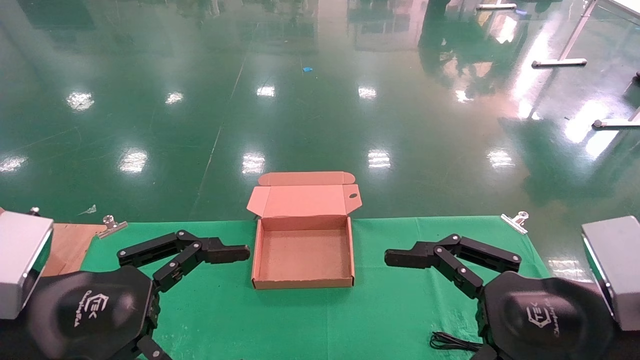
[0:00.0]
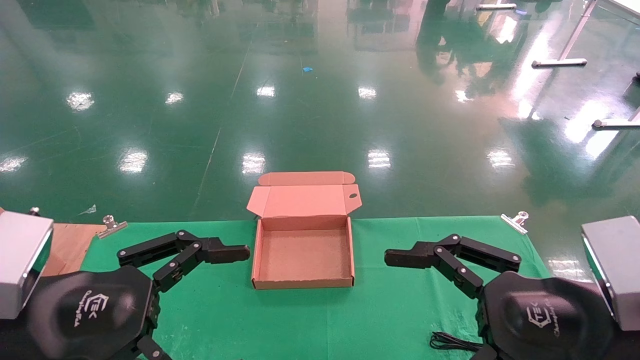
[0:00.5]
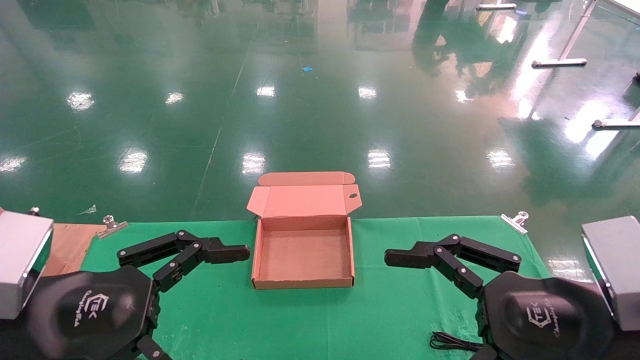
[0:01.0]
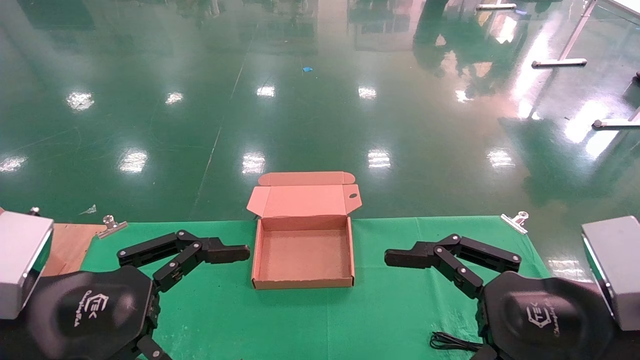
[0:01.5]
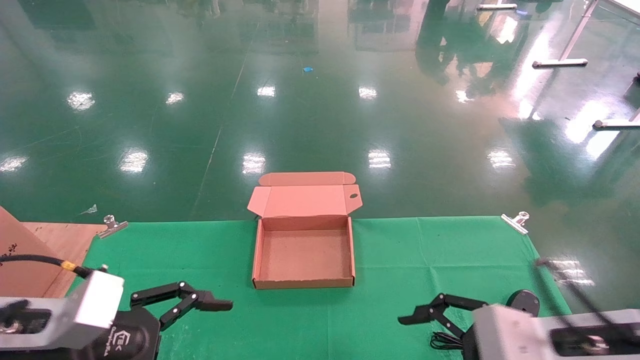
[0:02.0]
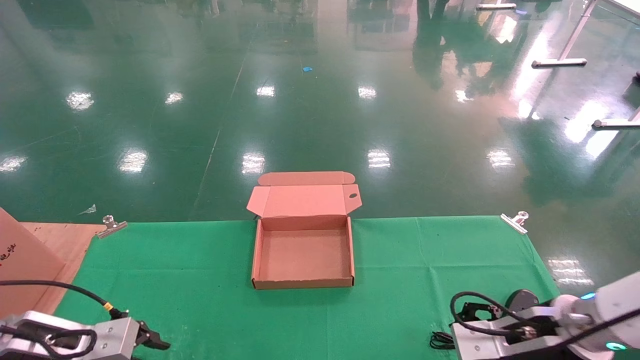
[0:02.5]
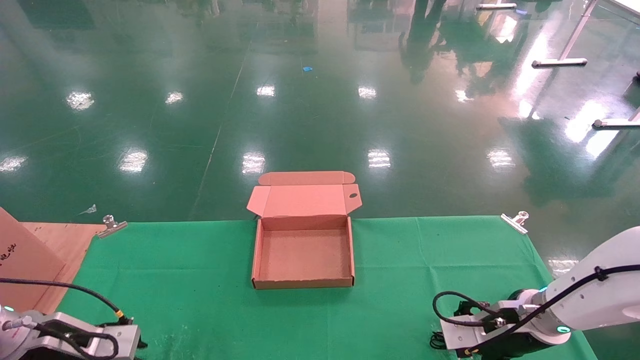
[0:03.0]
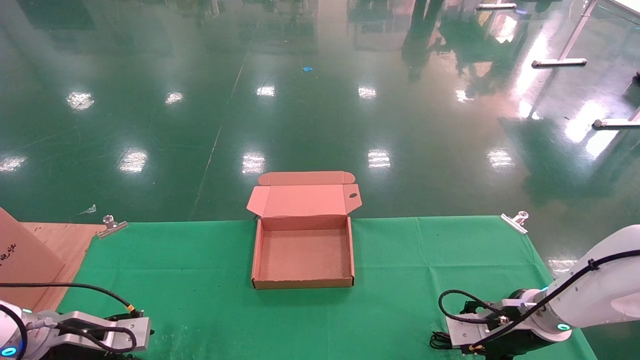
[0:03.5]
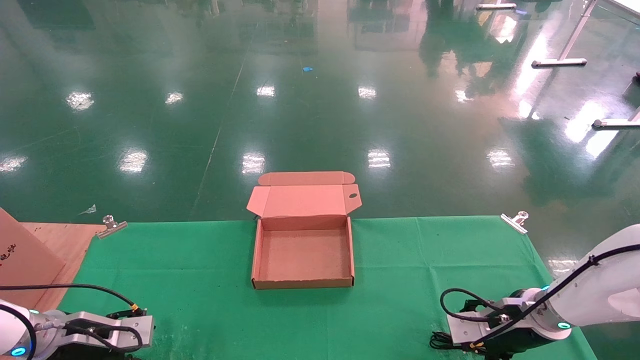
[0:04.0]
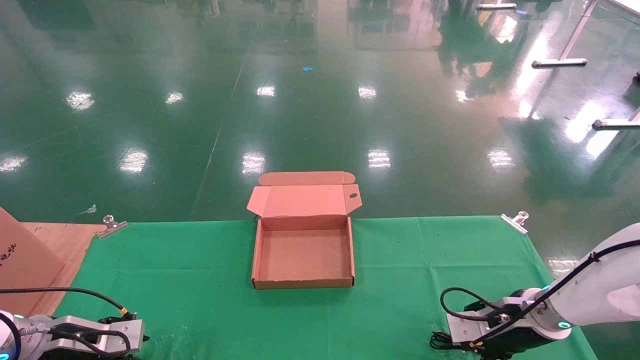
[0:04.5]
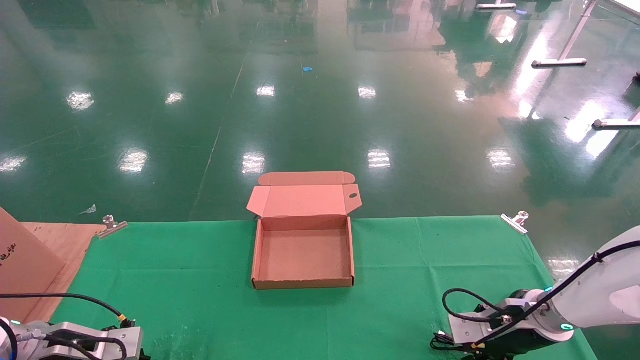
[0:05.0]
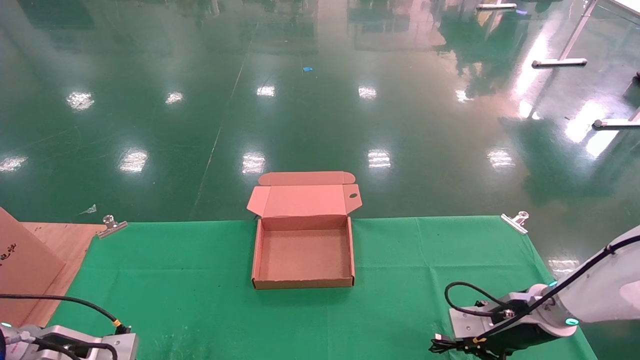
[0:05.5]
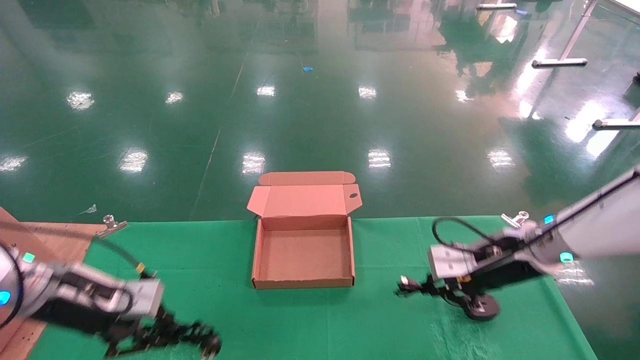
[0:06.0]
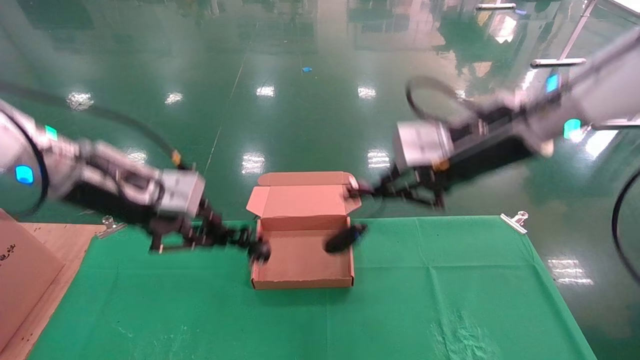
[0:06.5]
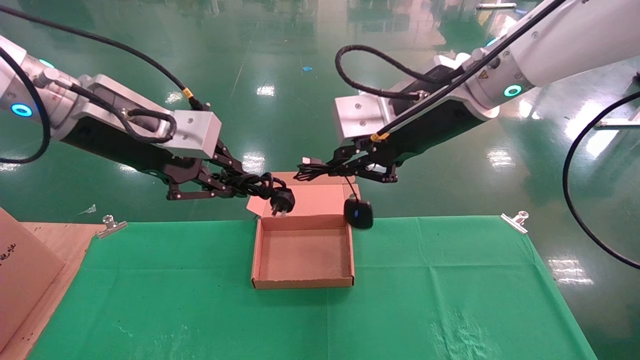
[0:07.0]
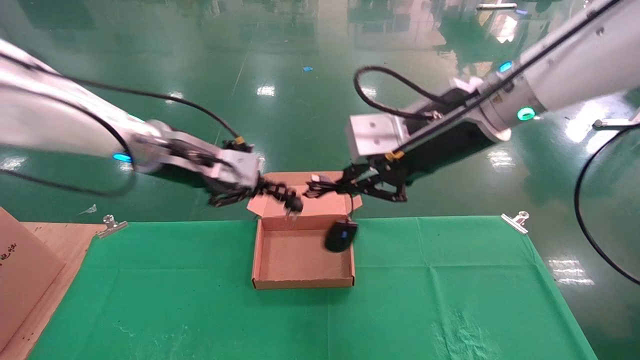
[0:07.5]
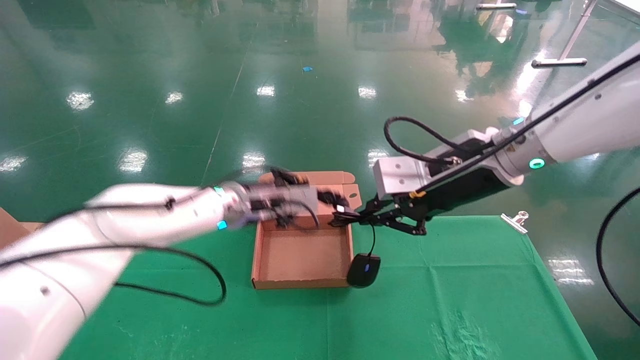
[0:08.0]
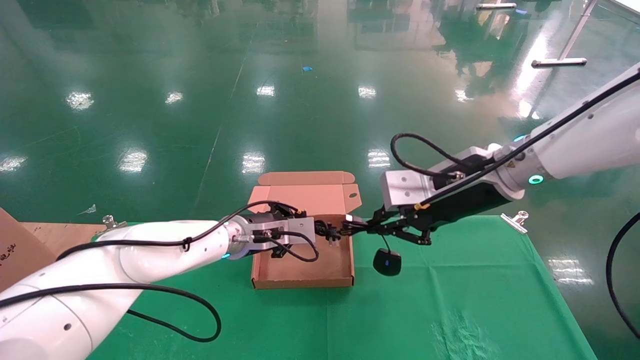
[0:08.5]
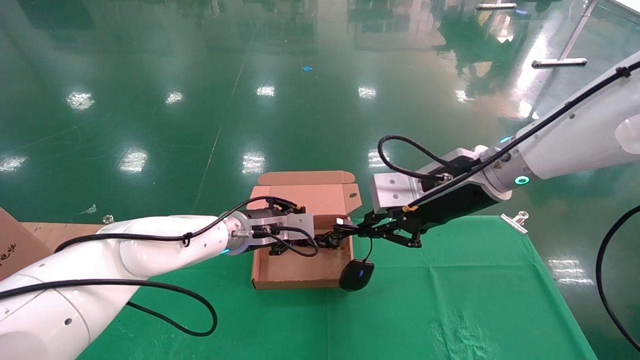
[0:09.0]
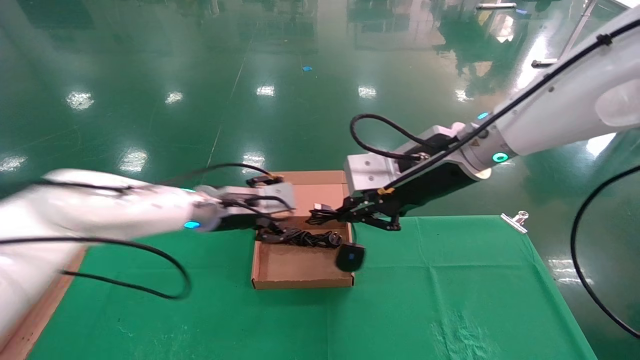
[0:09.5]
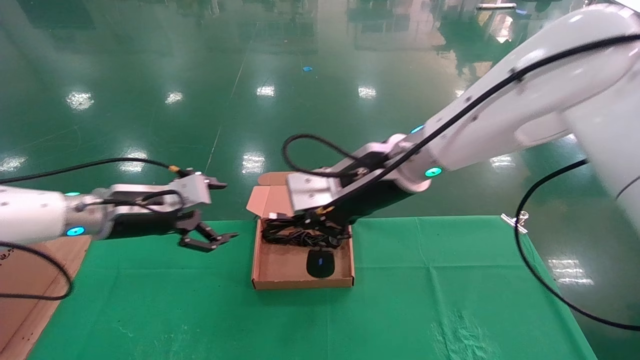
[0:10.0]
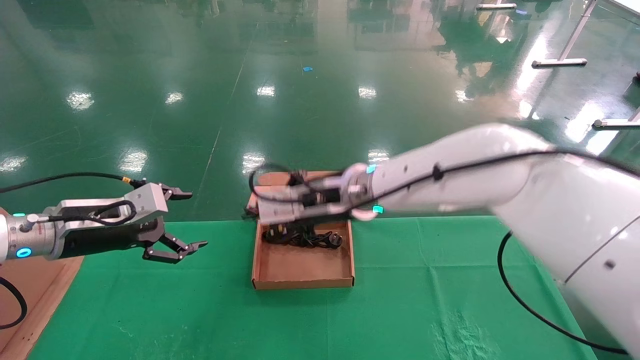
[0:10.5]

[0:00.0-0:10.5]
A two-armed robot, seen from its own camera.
Step, 0:02.5 to 0:06.0: Grab and lift both the mouse and power cord from the accessory packaging area at the same time.
0:00.0 to 0:02.0: The left gripper is displaced downward and forward by roughly 5 cm; the right gripper is displaced forward and downward by roughly 10 cm.
0:02.0 to 0:04.0: The left gripper travels forward, downward and to the left by roughly 20 cm; the right gripper heads forward and downward, covering roughly 20 cm.
0:04.0 to 0:06.5: The right gripper shifts approximately 30 cm upward and to the left, and closes its fingers; the left gripper is displaced upward and to the right by some 30 cm, and closes.
0:06.5 to 0:08.5: The left gripper is displaced downward, to the right and forward by some 25 cm; the right gripper ends up some 5 cm from where it was.
0:08.5 to 0:10.5: The right gripper is displaced to the left by roughly 15 cm. Meanwhile the left gripper moves to the left and backward, some 25 cm, and opens up.

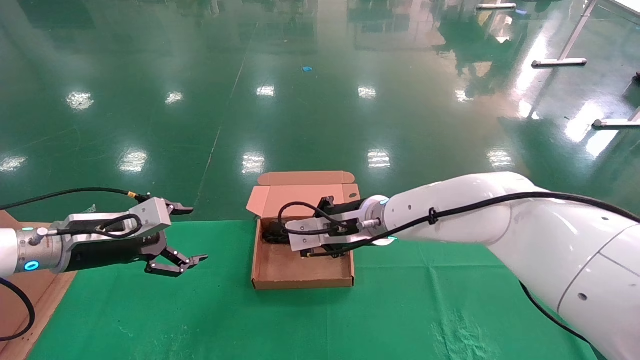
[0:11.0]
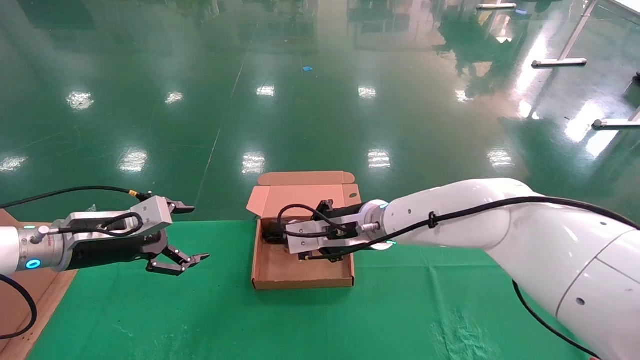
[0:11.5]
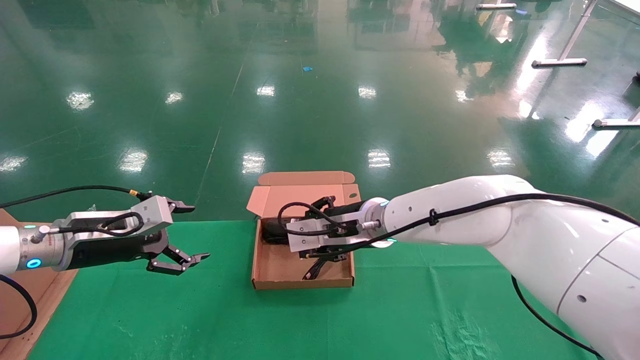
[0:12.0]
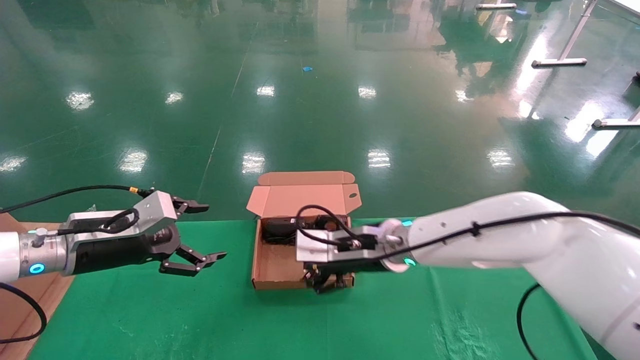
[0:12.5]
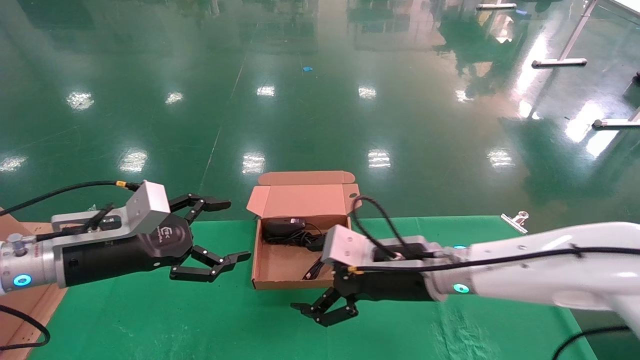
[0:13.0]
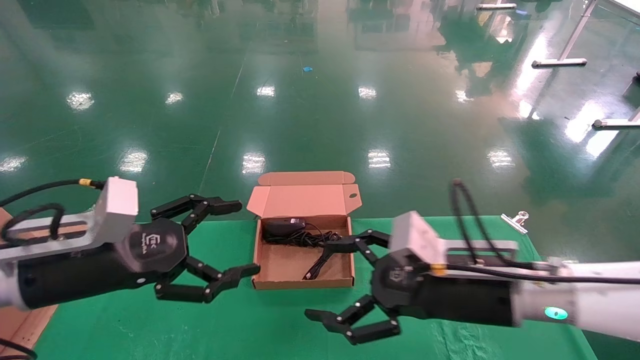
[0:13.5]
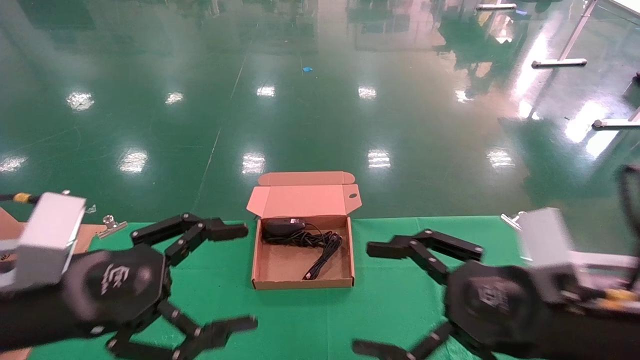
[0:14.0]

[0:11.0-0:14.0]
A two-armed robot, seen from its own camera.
Step, 0:11.0 to 0:13.0: Place the mouse and power cord into the box.
0:11.0 to 0:12.5: The right gripper changes place by some 5 cm, and opens.
0:12.5 to 0:14.0: The right gripper moves backward and to the right, approximately 25 cm, while the left gripper heads backward, covering about 15 cm.

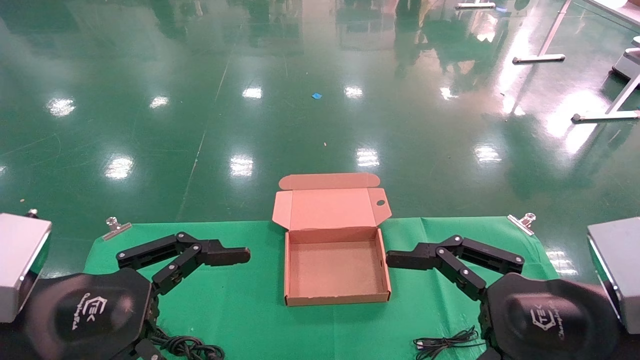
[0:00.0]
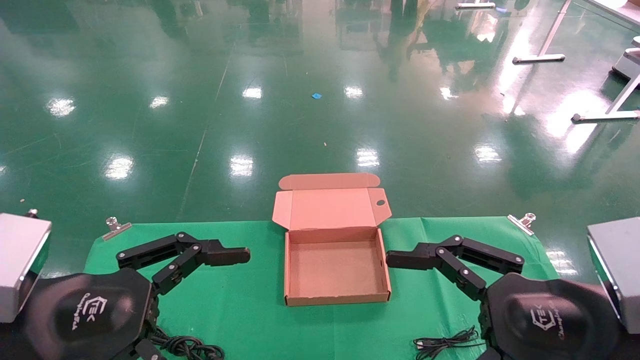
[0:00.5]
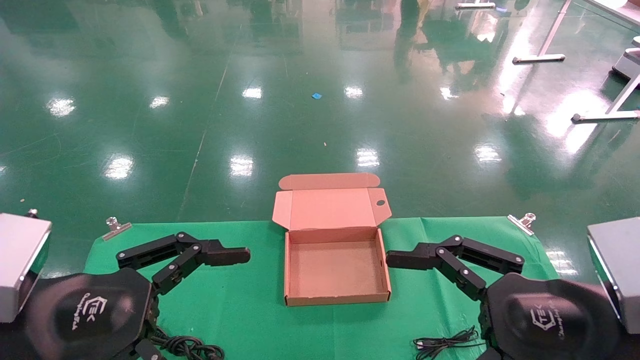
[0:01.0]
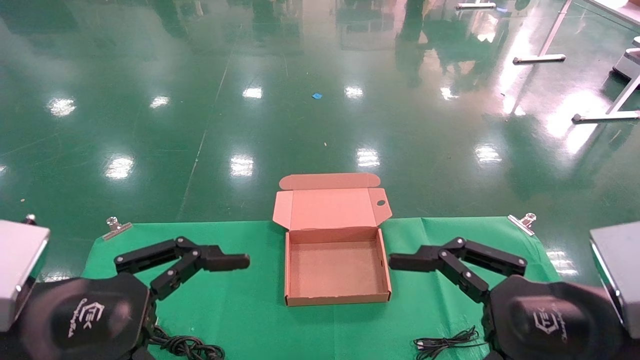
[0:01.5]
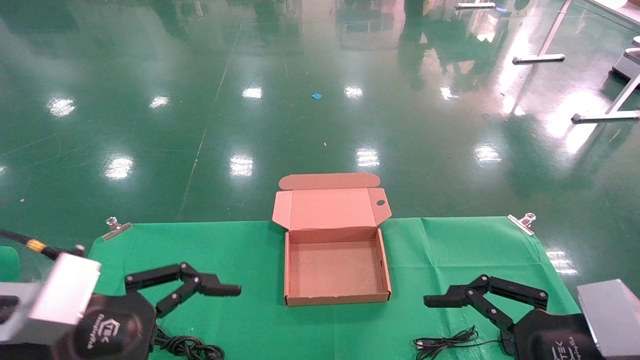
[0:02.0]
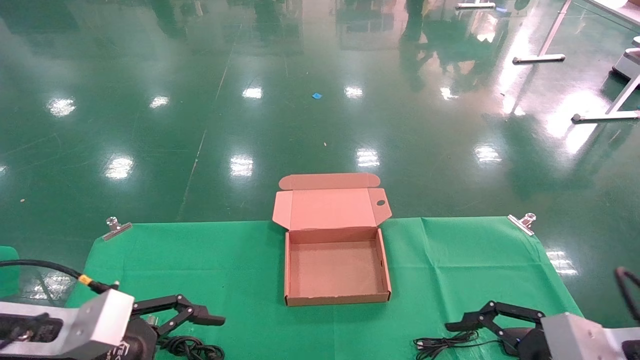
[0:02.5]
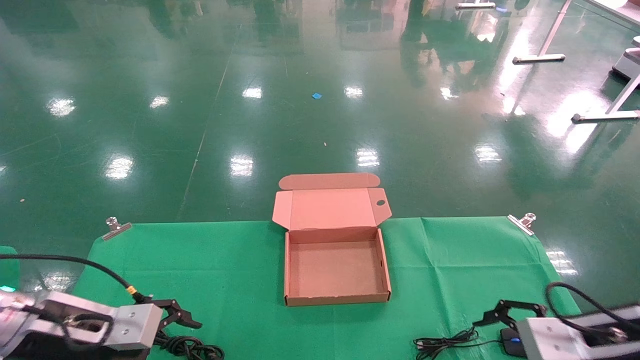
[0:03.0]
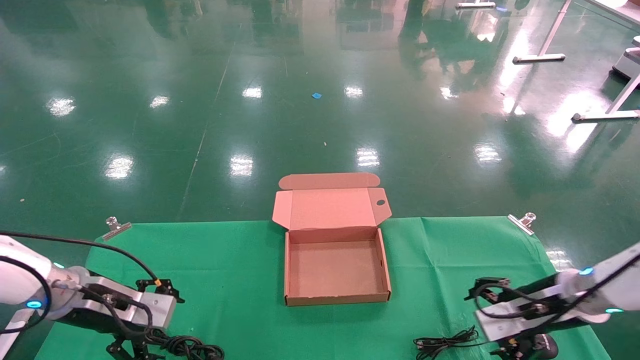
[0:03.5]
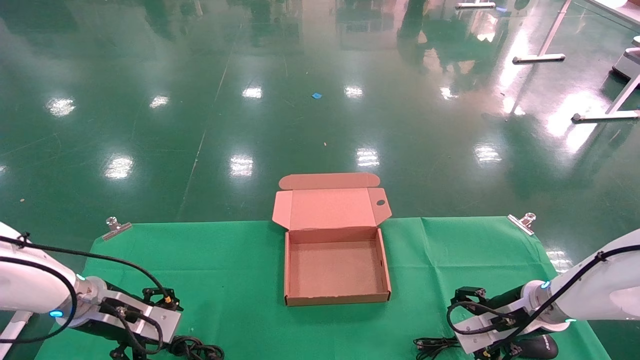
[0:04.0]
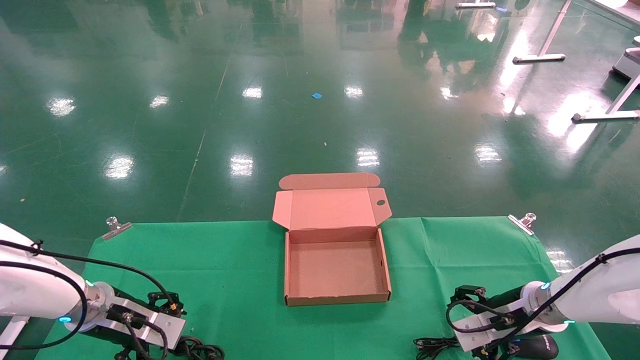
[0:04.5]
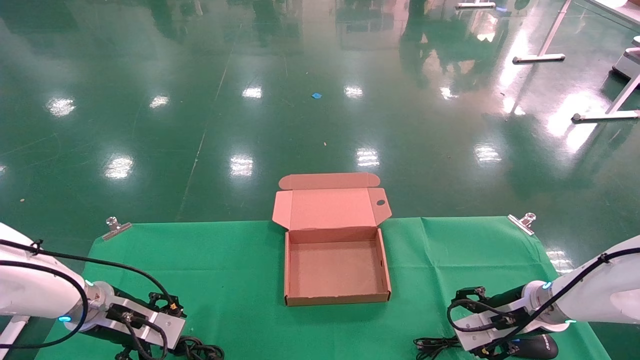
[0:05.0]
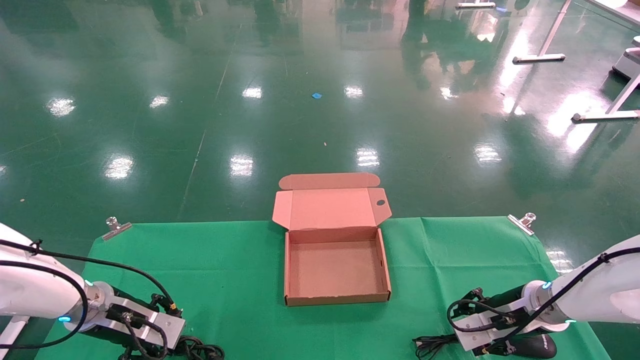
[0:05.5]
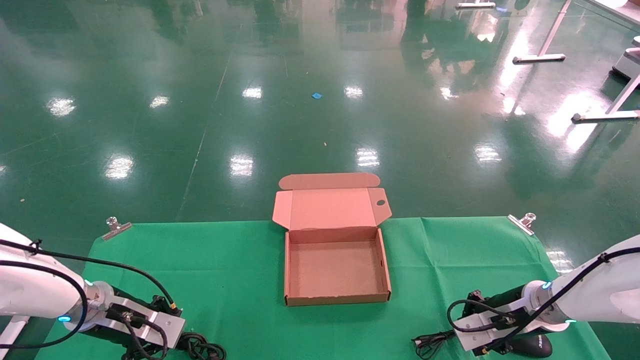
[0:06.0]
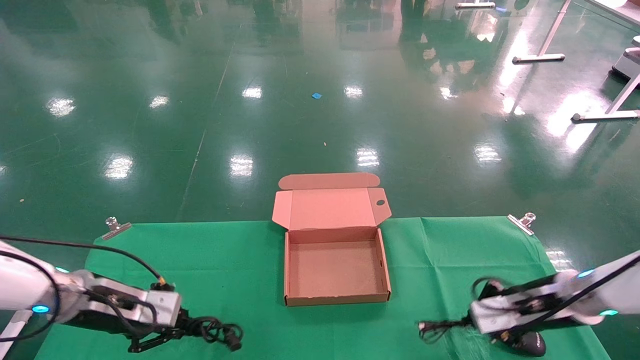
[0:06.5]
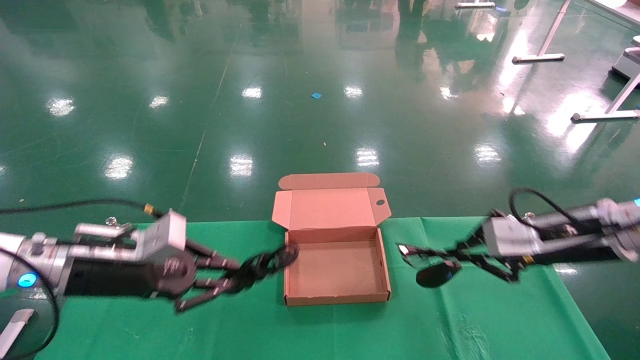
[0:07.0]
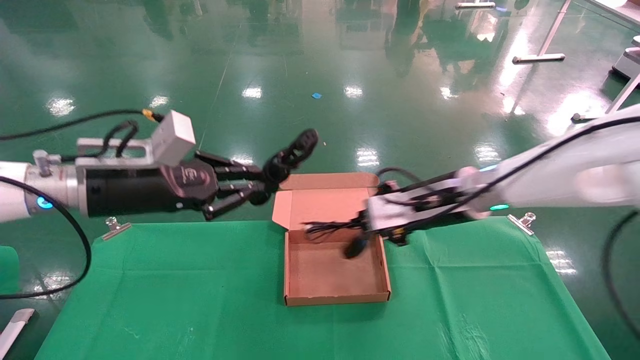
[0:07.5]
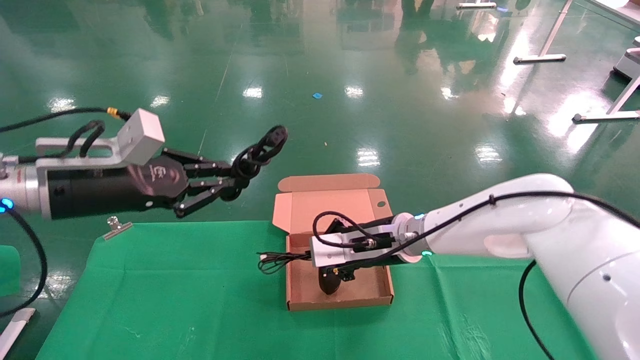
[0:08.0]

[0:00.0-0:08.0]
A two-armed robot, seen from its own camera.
Step, 0:01.5 to 0:06.0: Grab and lift both the mouse and power cord from the accessory packaging area at the same time.
0:00.0 to 0:02.0: There are only small adjustments of the grippers.
0:02.0 to 0:04.0: The two grippers go roughly 25 cm forward and downward.
0:04.0 to 0:06.0: The left gripper closes. The right gripper closes its fingers.
0:06.0 to 0:08.0: The left gripper shifts roughly 20 cm upward. Meanwhile the right gripper heads to the left and upward, covering approximately 20 cm.
